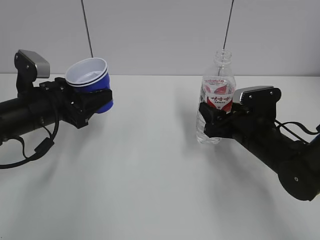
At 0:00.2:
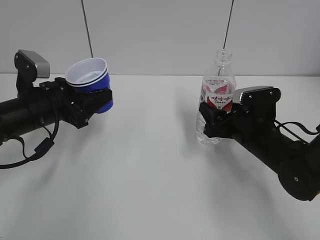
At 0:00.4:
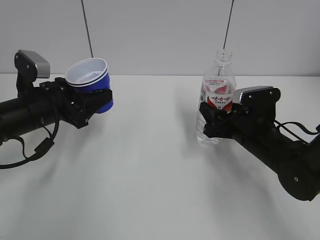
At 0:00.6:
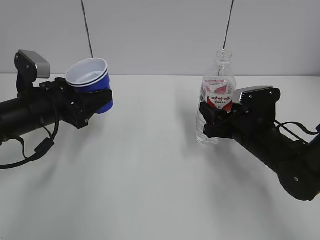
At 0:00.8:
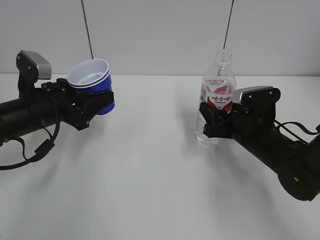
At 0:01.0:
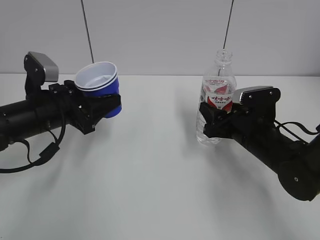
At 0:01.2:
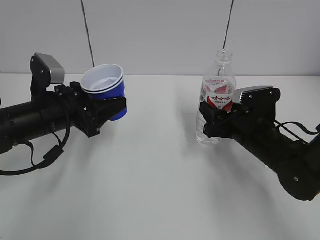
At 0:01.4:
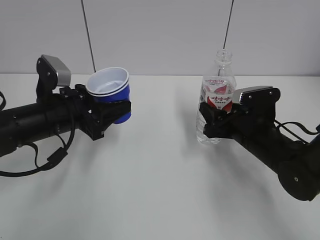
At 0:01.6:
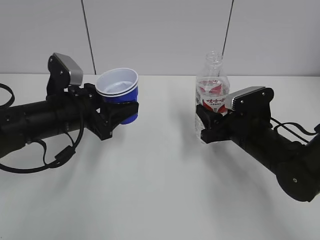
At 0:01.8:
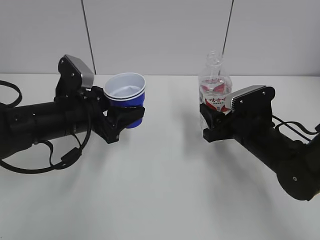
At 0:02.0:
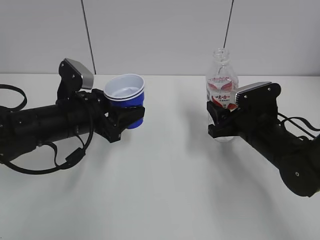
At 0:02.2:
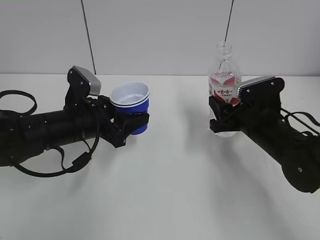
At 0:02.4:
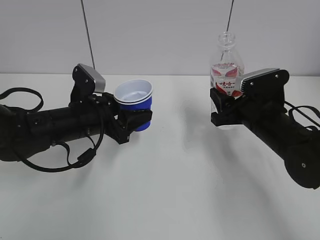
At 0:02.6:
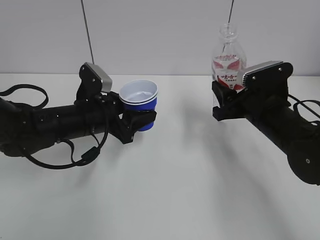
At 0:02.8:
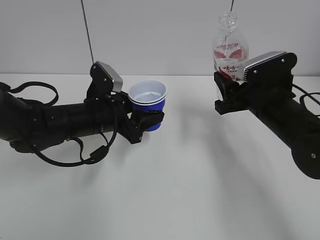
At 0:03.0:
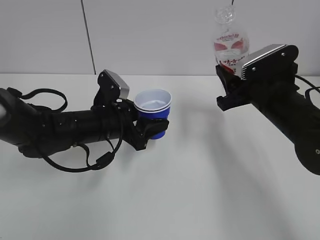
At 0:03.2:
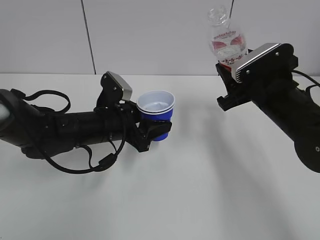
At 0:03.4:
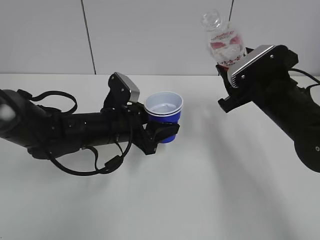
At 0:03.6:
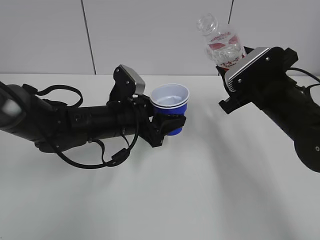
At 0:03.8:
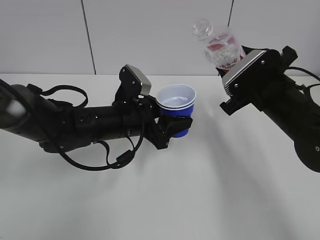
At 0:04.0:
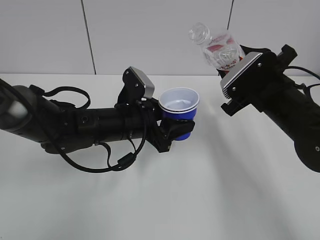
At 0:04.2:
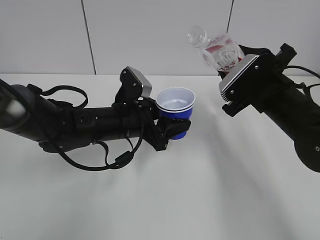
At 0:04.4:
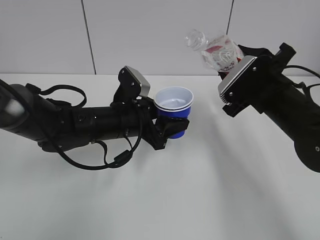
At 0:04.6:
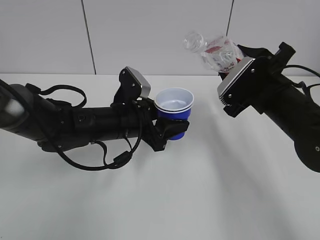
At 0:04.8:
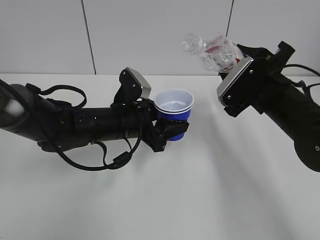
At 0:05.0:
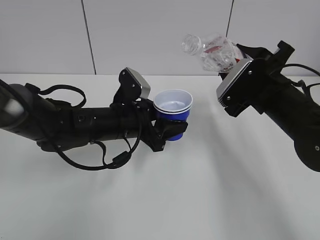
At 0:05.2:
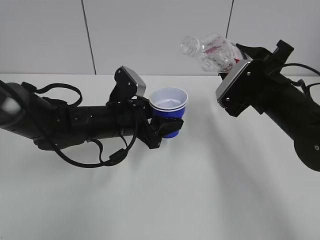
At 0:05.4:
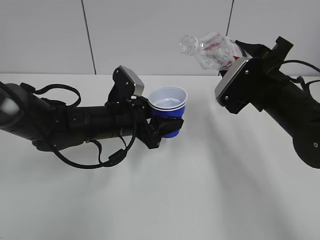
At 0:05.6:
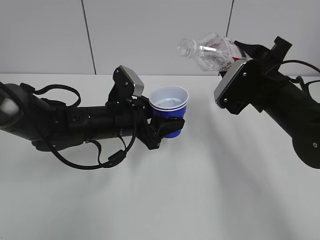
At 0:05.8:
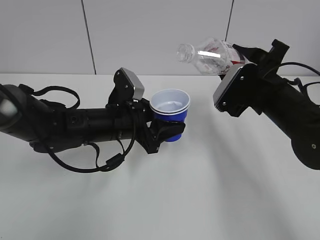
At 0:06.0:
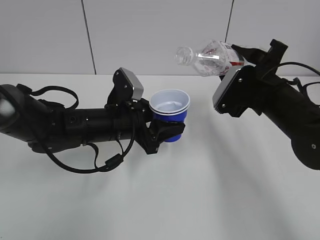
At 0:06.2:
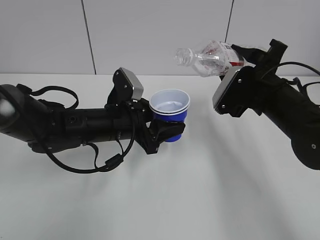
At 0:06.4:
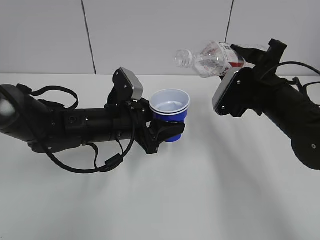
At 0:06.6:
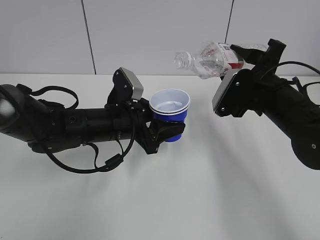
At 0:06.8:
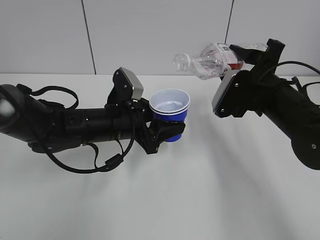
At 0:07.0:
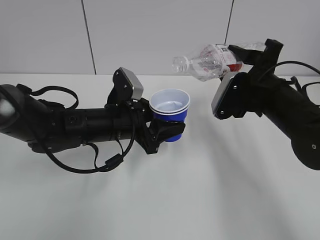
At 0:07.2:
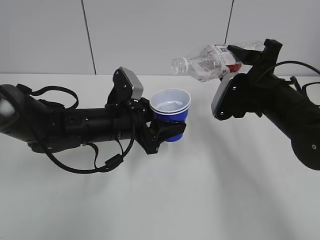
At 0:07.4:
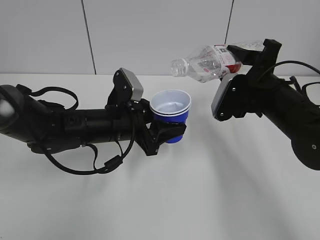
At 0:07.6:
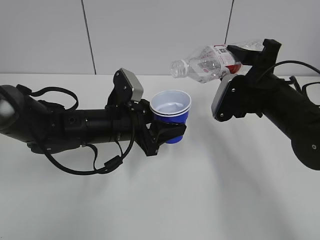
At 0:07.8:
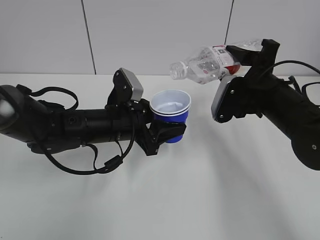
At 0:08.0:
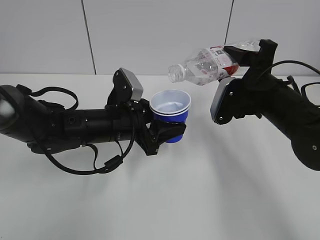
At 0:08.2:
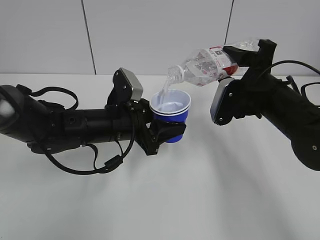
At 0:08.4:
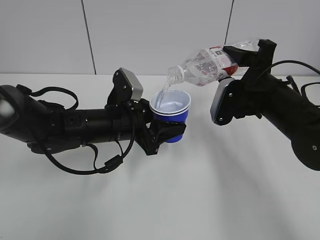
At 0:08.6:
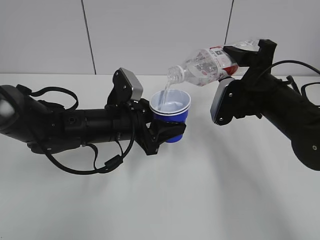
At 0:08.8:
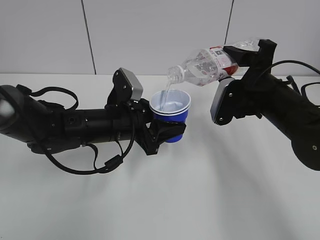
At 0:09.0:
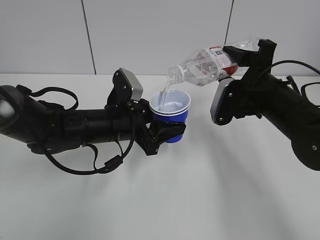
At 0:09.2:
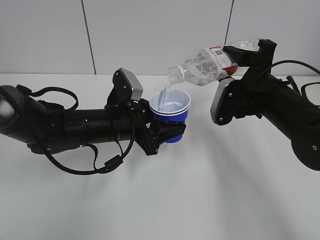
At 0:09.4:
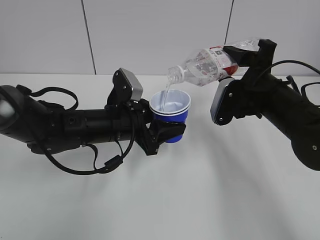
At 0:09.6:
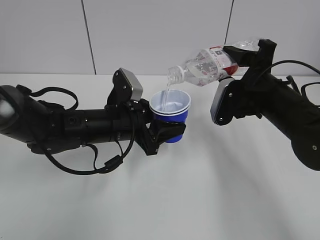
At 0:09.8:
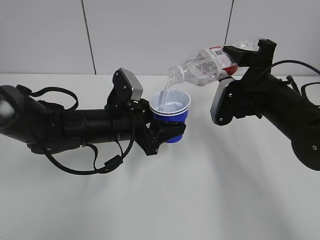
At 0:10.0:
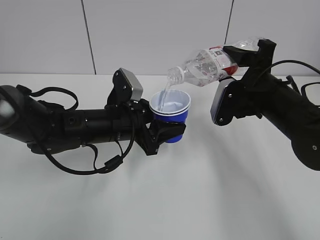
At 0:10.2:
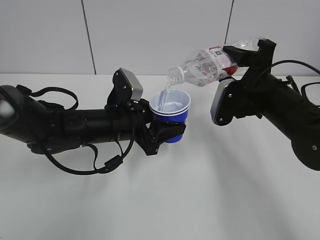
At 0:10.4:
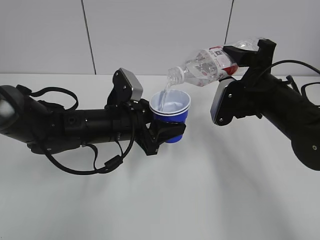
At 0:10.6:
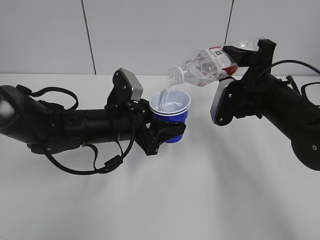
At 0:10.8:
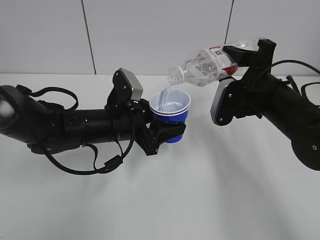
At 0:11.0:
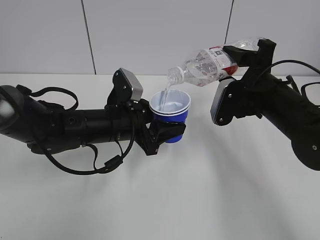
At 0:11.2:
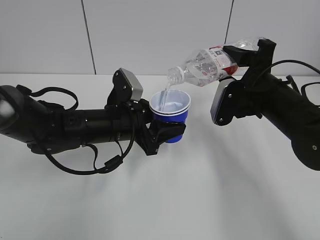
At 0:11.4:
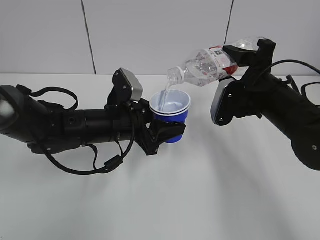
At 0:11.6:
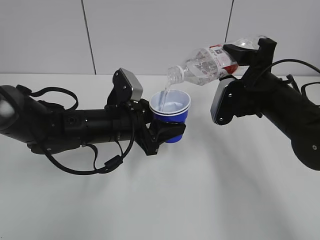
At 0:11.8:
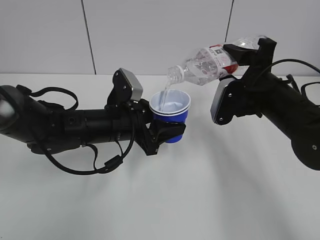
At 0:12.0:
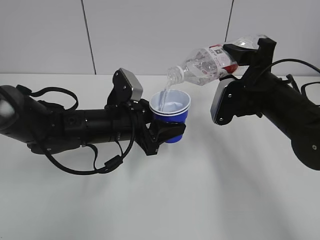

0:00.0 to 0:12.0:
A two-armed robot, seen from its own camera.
Step, 0:00.0 to 0:07.8: Lift the paper cup with the left hand.
0:00.0 to 0:01.6: The grippers stay close to where they were, moving slightly.
0:01.6 to 0:03.0: The right gripper shifts roughly 10 cm upward, while the left gripper heads to the right, covering approximately 5 cm.
0:04.4 to 0:06.0: There are only small adjustments of the grippers.
0:06.0 to 0:07.6: The grippers make only small movements.
0:07.6 to 0:09.0: Both grippers stay put.
0:09.0 to 0:12.0: Neither gripper changes place.

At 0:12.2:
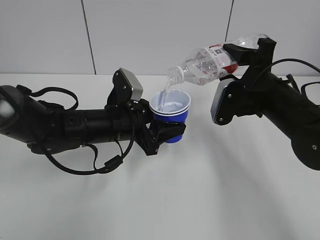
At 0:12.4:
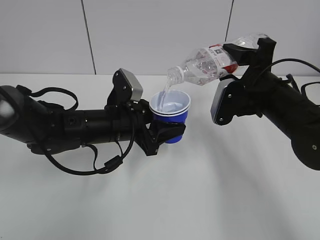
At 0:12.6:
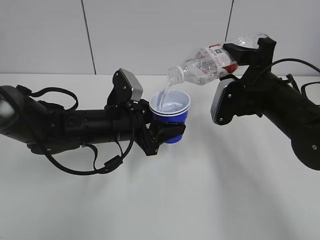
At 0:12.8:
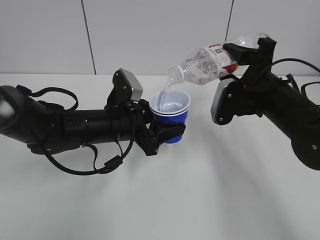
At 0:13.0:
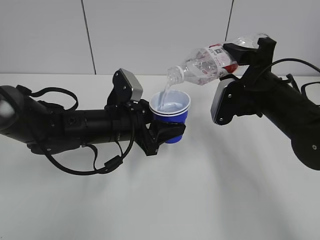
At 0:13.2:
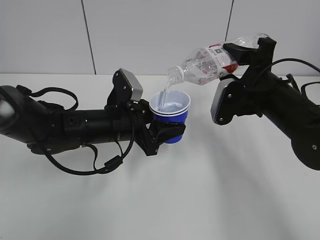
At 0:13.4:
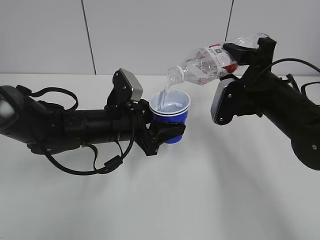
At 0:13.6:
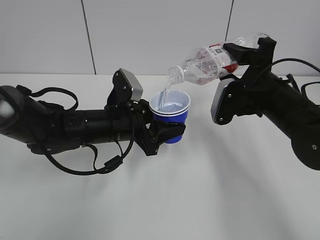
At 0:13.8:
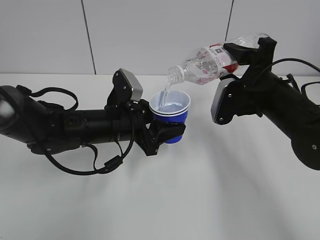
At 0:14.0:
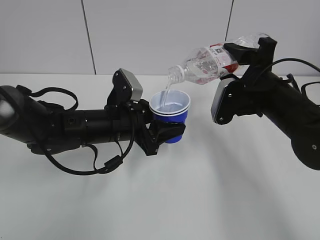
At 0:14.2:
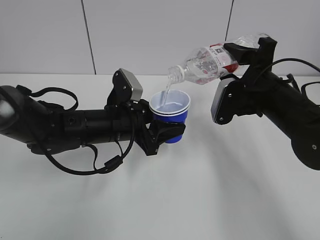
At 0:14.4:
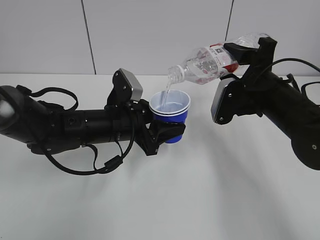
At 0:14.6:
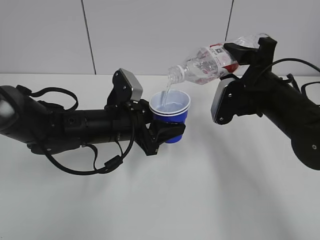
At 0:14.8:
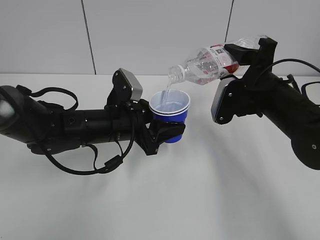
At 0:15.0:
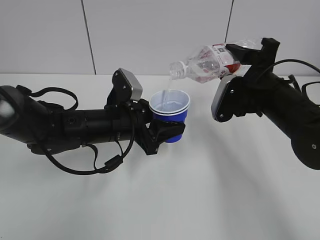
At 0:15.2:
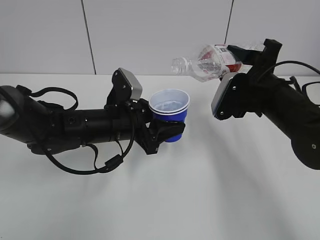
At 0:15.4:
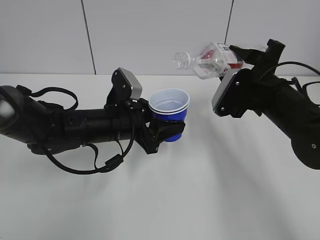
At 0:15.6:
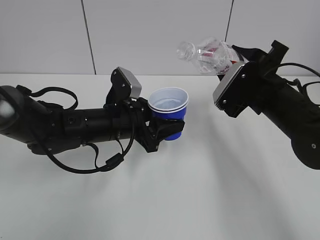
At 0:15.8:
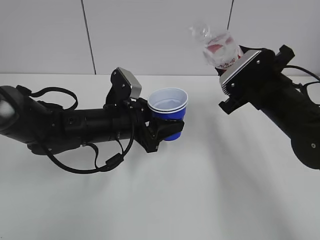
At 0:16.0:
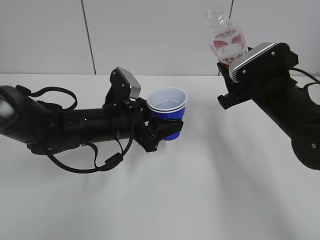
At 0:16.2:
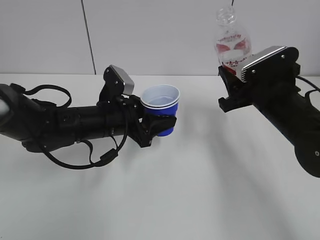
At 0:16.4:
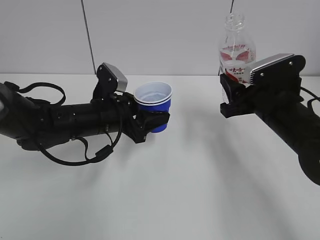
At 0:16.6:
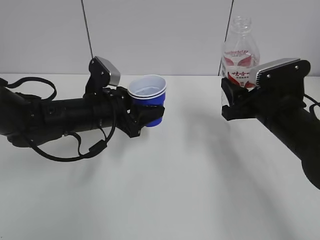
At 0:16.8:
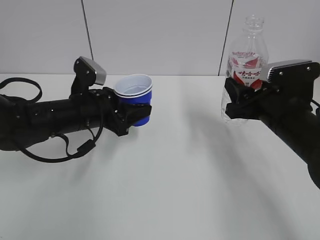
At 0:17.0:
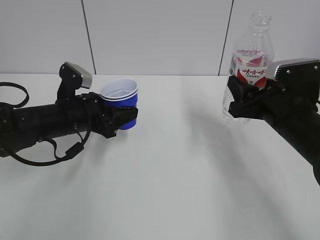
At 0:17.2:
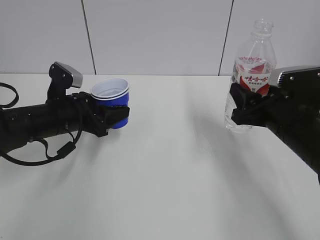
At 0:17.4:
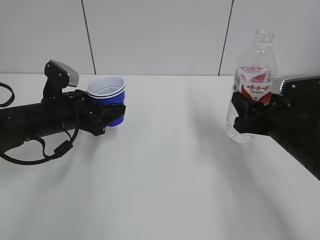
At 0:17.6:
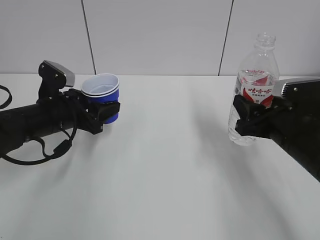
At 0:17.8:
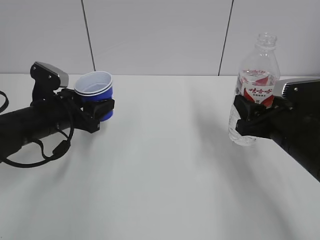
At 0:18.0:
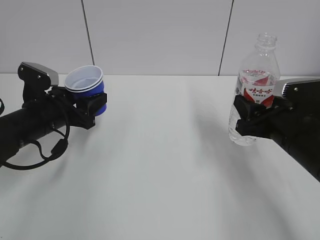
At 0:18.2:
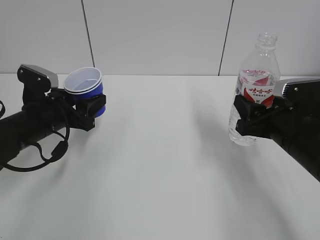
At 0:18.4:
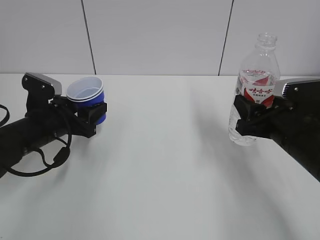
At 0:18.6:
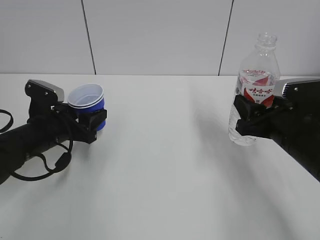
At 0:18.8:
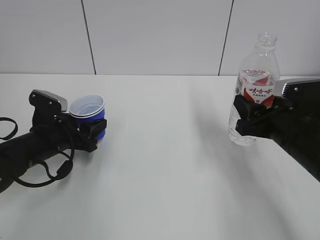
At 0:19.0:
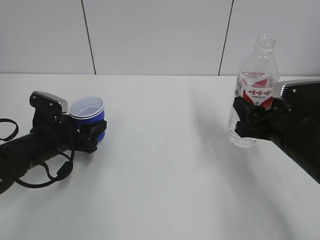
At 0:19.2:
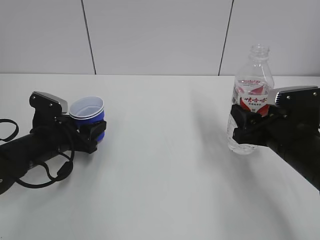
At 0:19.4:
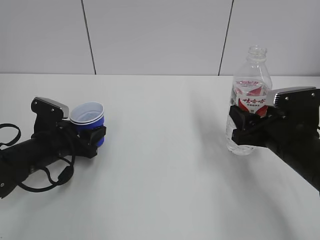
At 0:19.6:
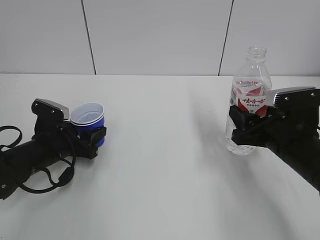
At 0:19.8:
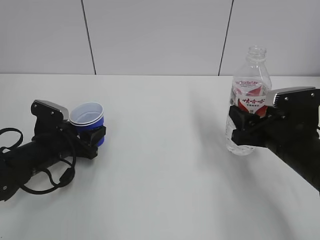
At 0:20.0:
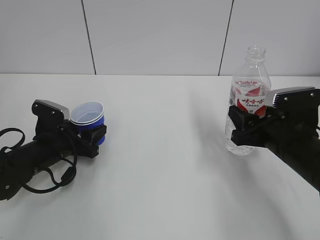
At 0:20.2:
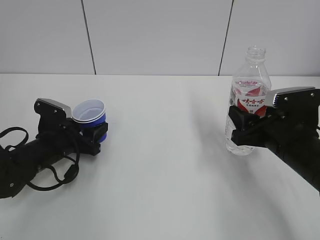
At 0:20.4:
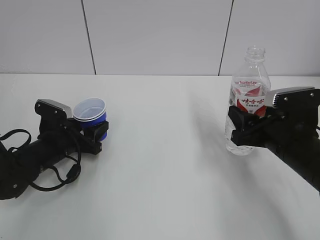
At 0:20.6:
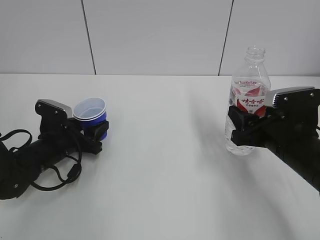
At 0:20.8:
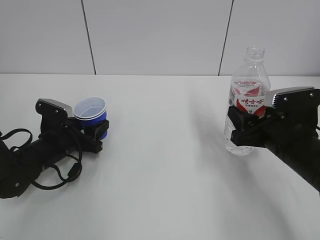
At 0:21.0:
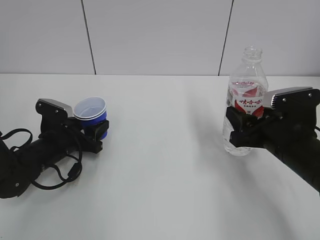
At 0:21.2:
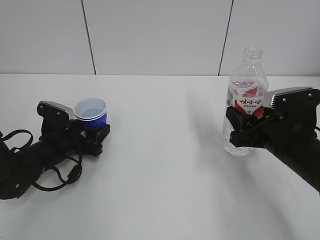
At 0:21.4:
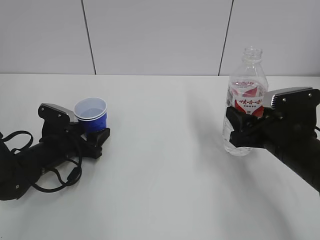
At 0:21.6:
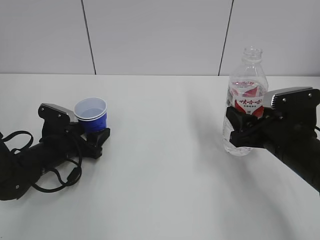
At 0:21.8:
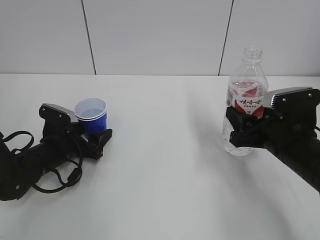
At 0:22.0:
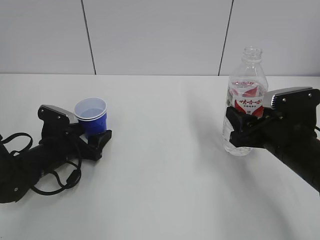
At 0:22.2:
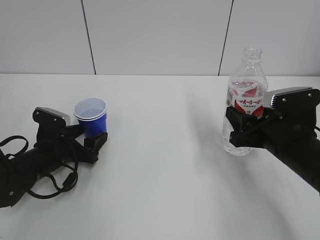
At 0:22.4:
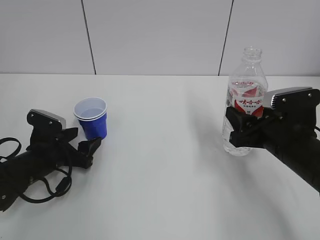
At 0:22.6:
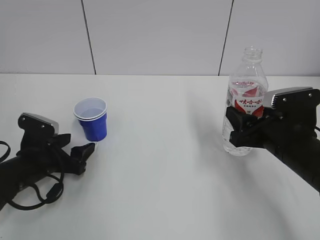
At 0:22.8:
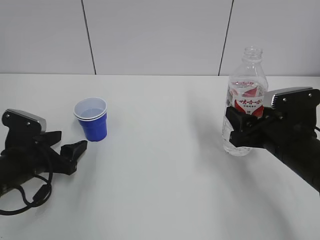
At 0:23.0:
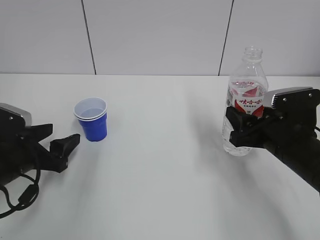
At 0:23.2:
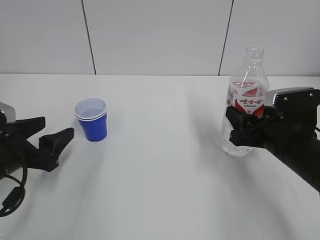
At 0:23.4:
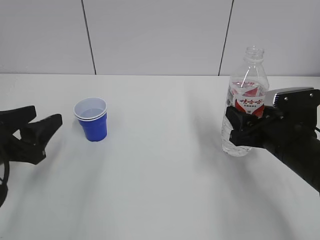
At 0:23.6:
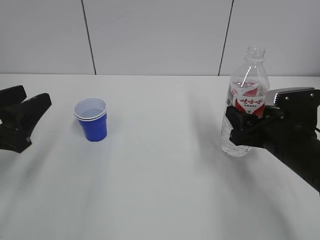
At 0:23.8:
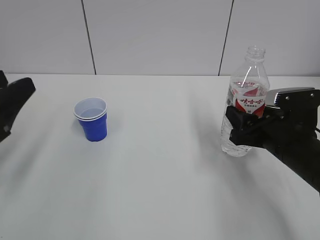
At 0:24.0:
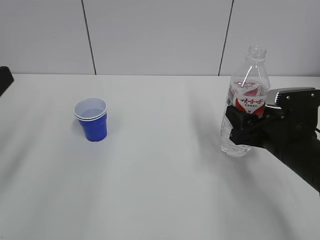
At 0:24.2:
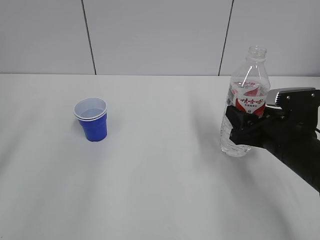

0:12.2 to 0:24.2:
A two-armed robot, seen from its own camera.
Step, 0:12.2 to 0:15.2: Fill water with the left hand.
Step, 0:12.2 to 0:15.2: Pour water with the right hand.
Step, 0:15.4 to 0:16.6: Collect water with the right hand.
Step, 0:16.8 to 0:22.2: Place the paper cup with the left hand.
0:12.2 to 0:13.8: Both grippers stay about where they are.
0:13.8 to 0:15.2: The grippers make only small movements.
0:16.6 to 0:18.2: The left gripper is displaced to the left by about 10 cm.
0:18.2 to 0:19.8: The left gripper moves downward, about 5 cm.
0:19.8 to 0:21.2: The grippers make only small movements.
0:21.2 to 0:22.6: The left gripper moves some 5 cm, and opens.
0:22.6 to 0:24.2: The left gripper shifts roughly 30 cm upward and backward, and closes its fingers.
